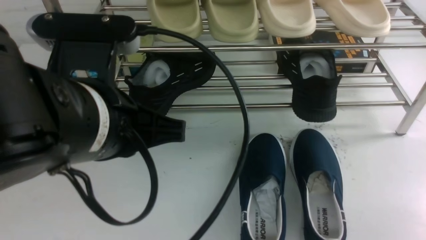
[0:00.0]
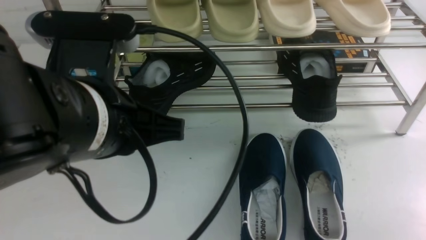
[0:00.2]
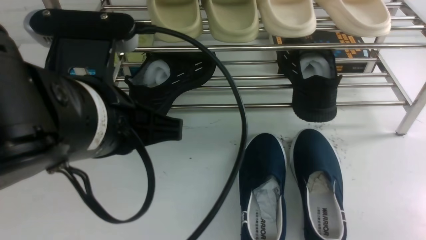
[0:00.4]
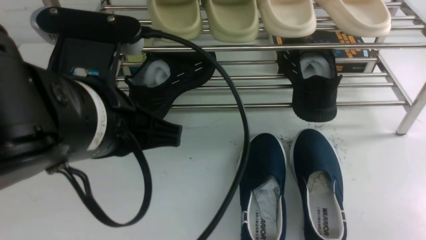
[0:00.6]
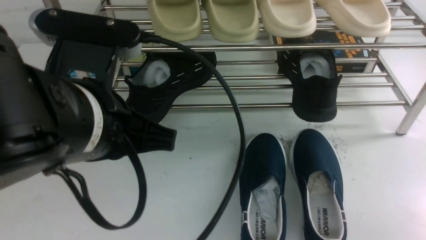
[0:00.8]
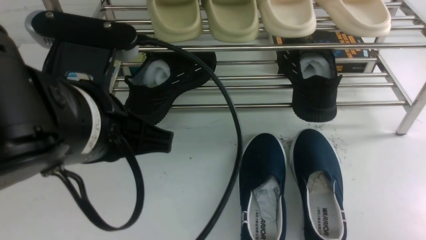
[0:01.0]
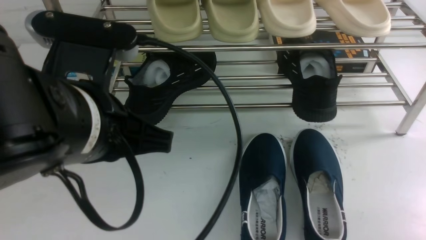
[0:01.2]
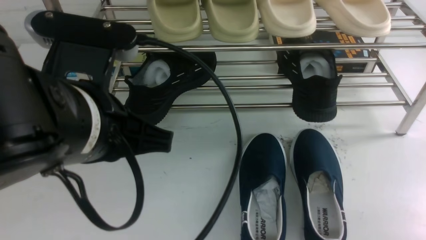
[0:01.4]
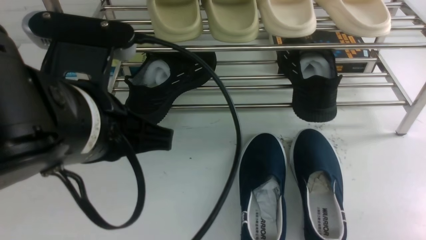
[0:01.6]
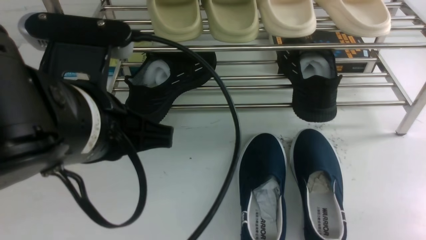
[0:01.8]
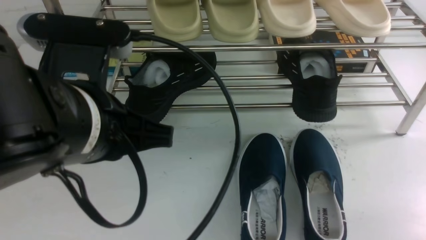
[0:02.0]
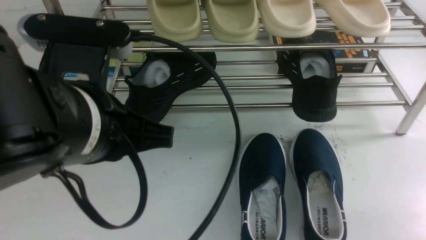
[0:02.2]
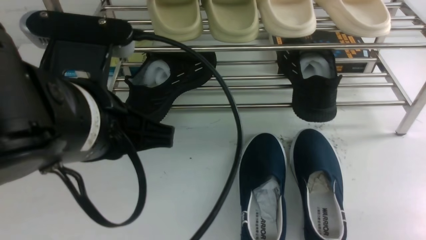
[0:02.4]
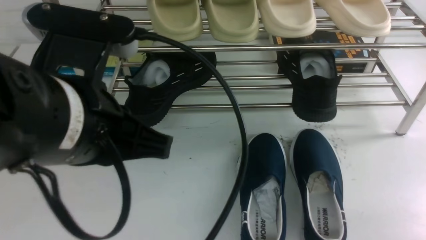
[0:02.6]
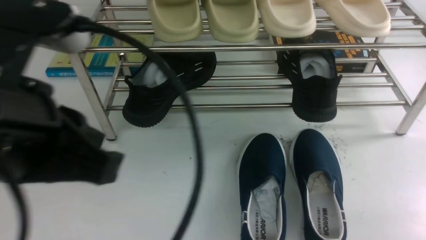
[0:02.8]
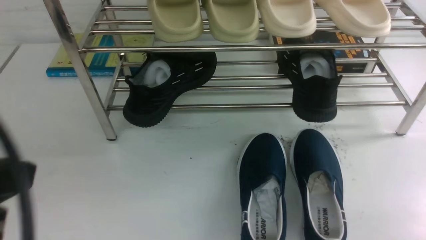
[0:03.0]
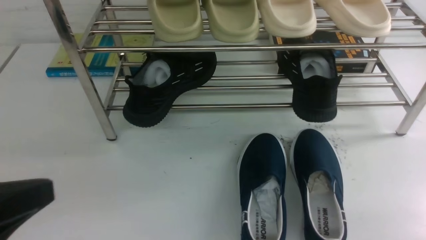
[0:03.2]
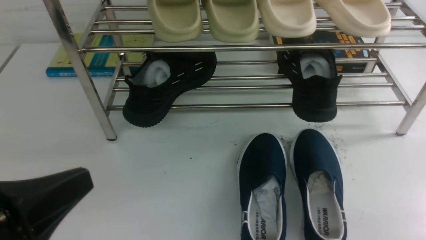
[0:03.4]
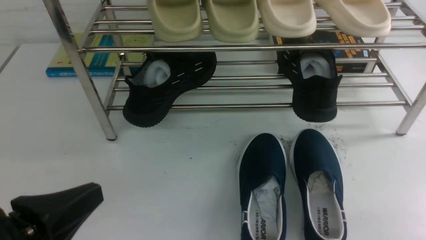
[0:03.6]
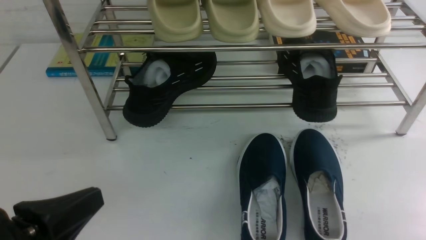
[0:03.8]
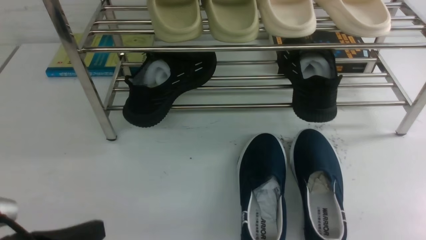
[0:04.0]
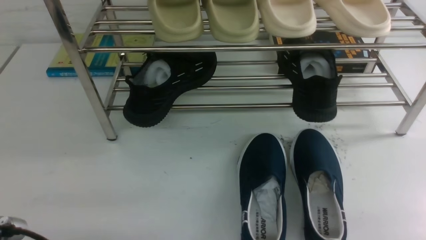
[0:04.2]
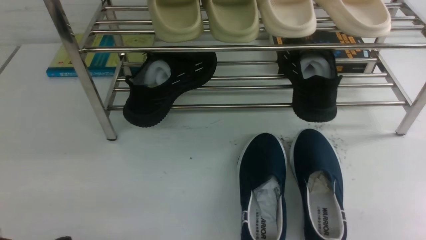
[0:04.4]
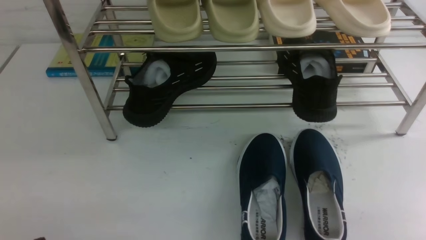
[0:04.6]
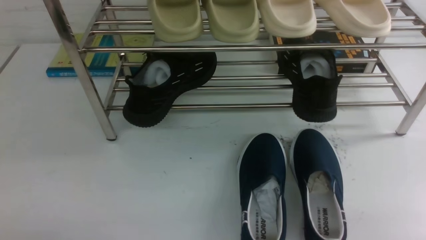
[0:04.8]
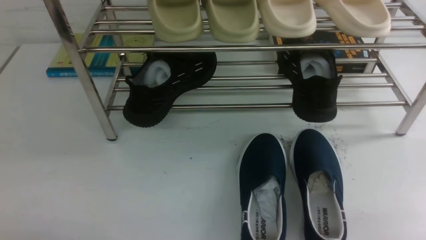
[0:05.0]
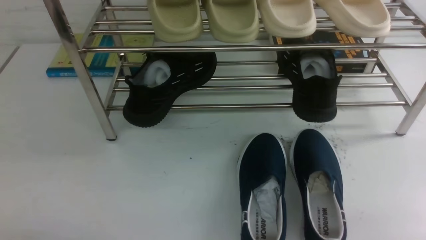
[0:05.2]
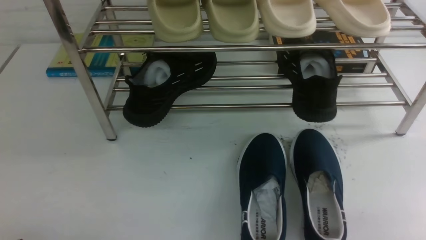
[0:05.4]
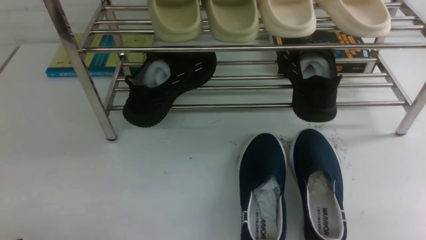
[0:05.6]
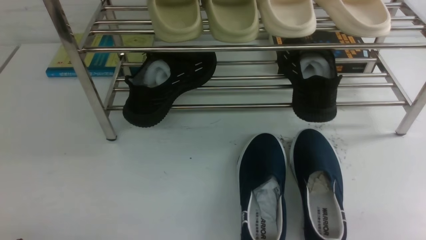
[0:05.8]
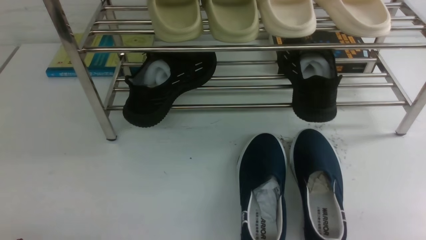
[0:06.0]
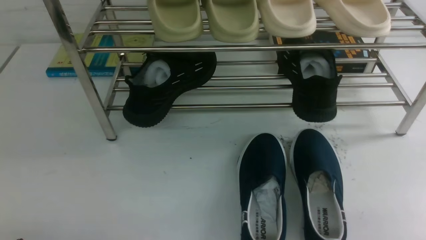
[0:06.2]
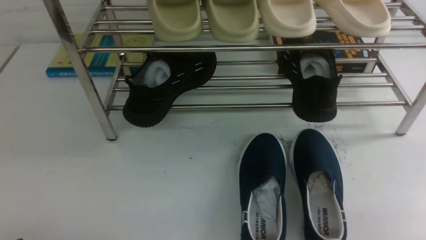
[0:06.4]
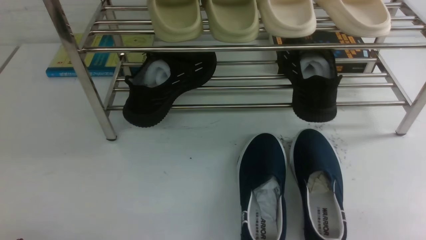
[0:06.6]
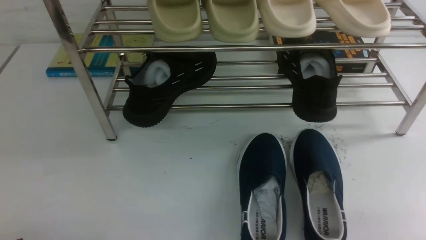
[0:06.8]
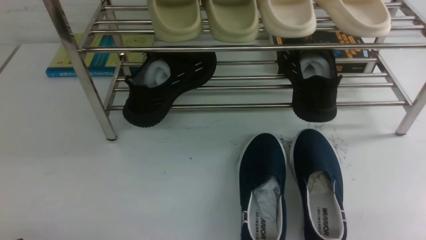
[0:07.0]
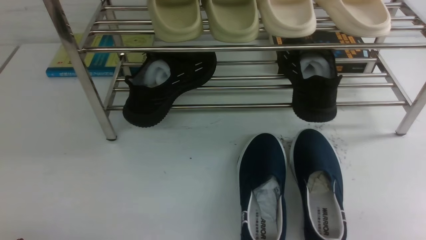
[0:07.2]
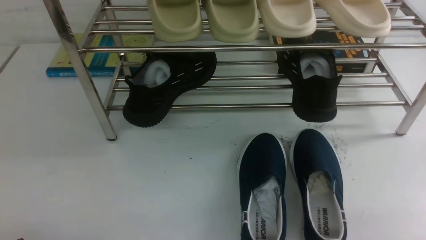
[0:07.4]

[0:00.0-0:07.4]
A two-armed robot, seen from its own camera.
0:01.4 to 0:03.0: The left gripper goes some 10 cm to the left and backward.
0:03.0 to 0:04.4: The left gripper travels downward by approximately 20 cm.
0:06.0 to 0:07.4: Both grippers stay about where they are.

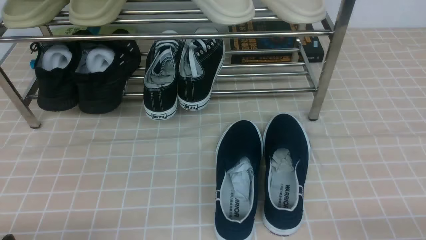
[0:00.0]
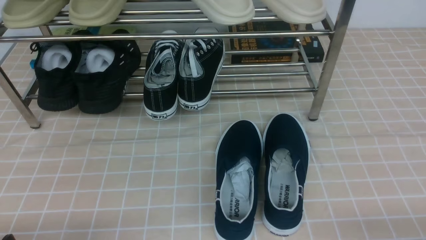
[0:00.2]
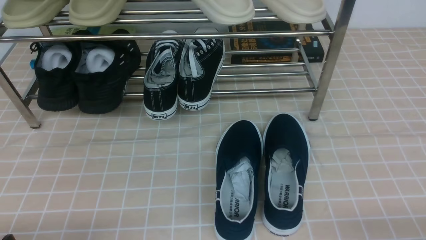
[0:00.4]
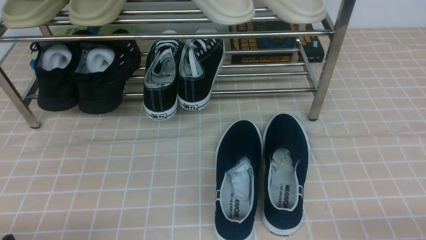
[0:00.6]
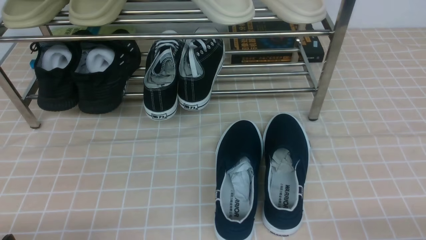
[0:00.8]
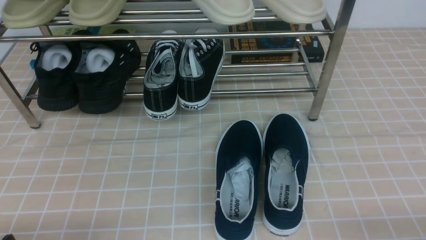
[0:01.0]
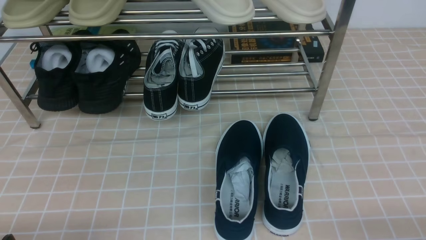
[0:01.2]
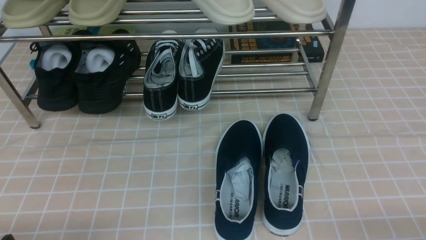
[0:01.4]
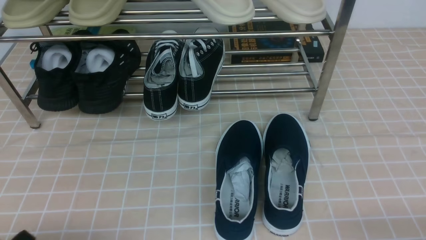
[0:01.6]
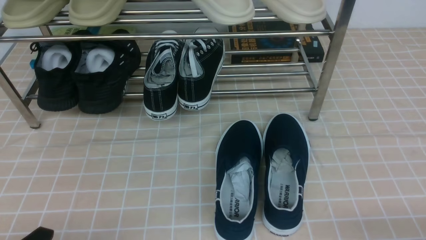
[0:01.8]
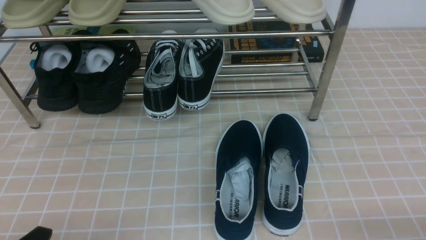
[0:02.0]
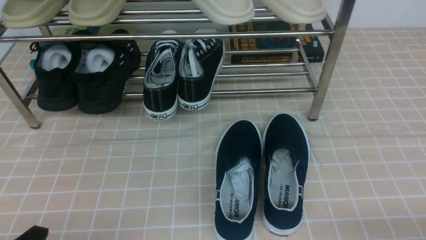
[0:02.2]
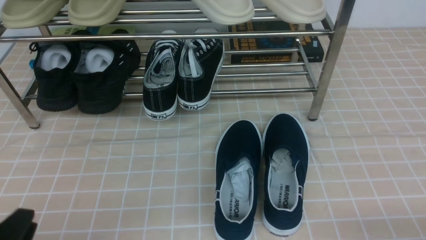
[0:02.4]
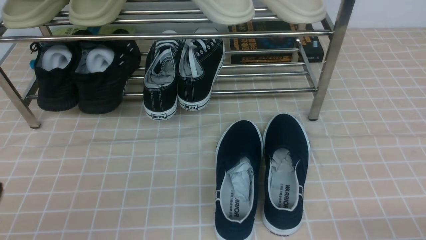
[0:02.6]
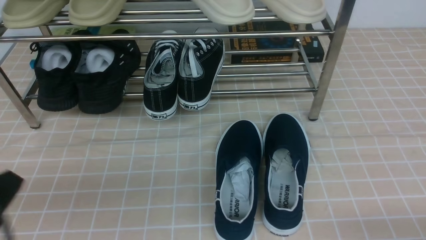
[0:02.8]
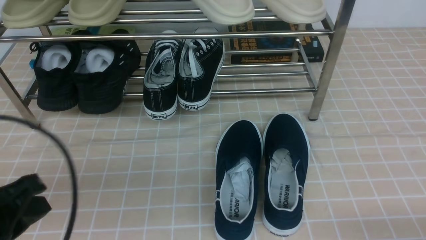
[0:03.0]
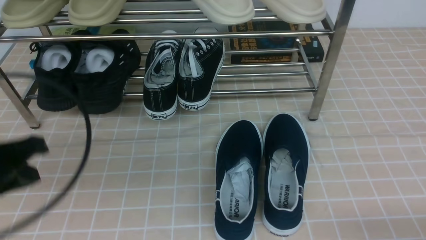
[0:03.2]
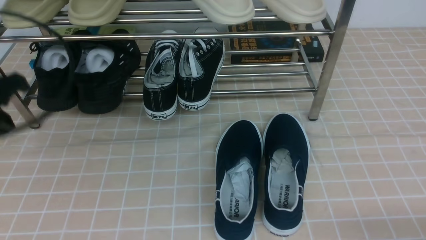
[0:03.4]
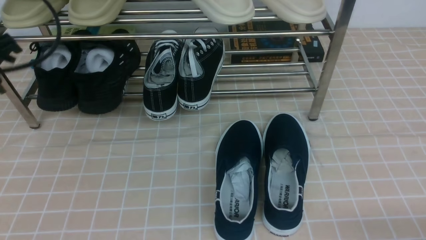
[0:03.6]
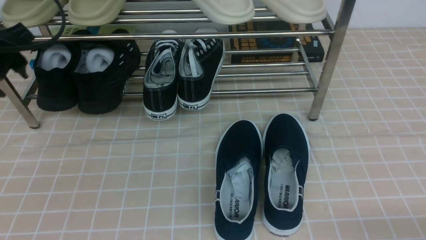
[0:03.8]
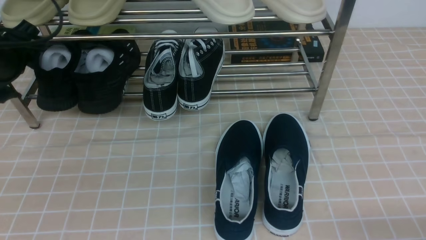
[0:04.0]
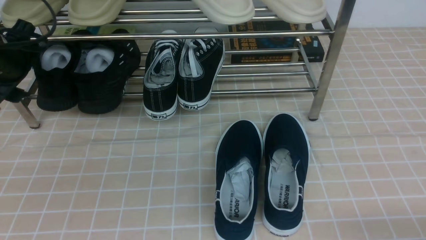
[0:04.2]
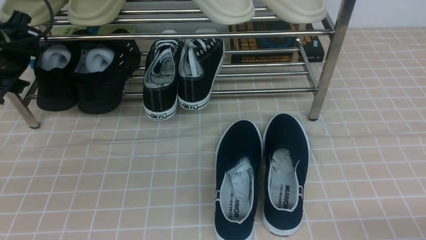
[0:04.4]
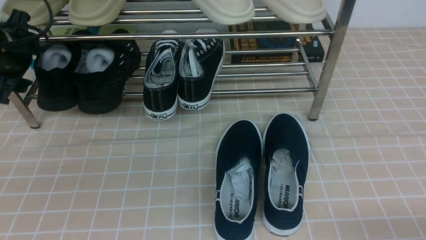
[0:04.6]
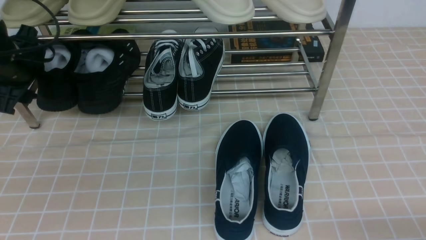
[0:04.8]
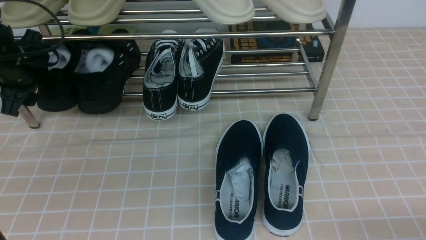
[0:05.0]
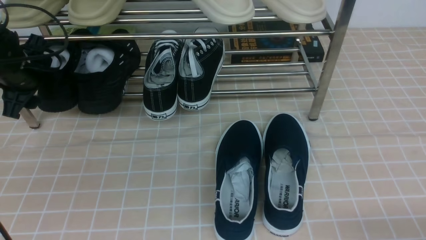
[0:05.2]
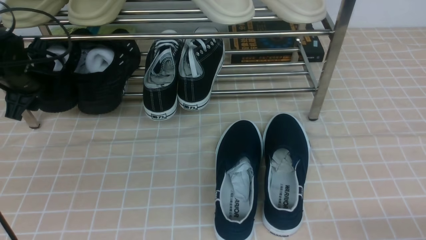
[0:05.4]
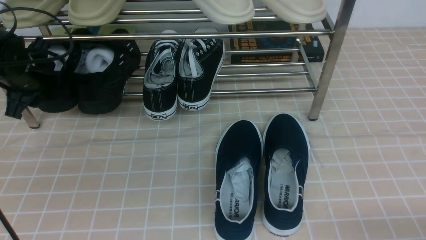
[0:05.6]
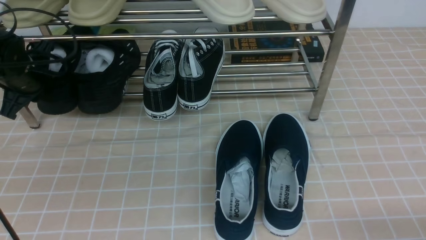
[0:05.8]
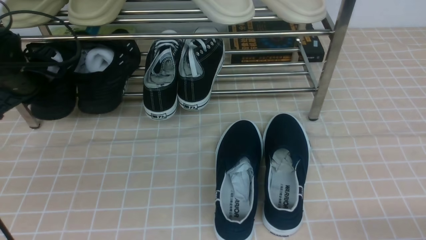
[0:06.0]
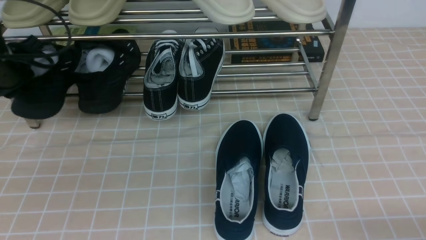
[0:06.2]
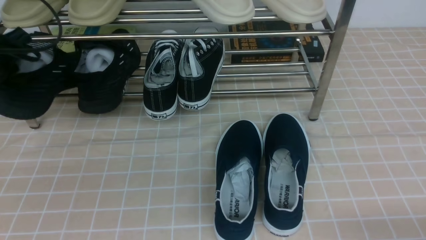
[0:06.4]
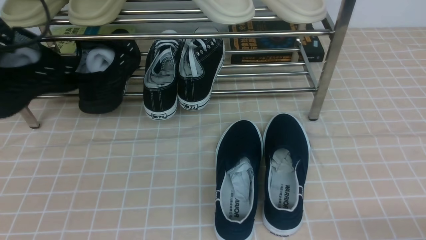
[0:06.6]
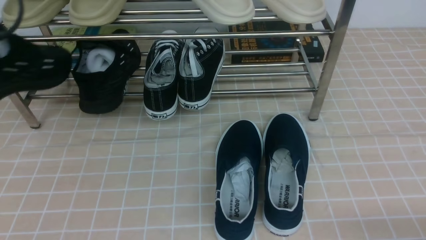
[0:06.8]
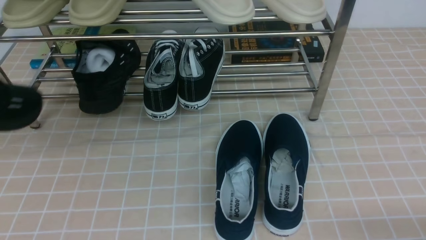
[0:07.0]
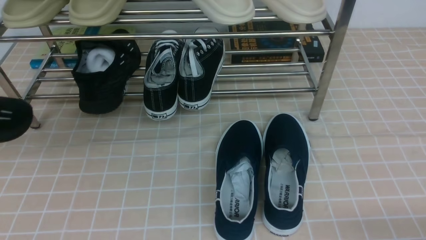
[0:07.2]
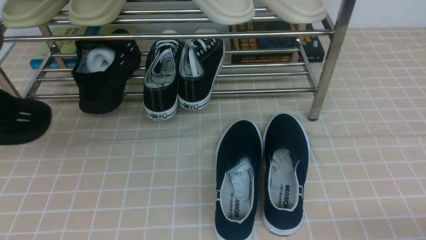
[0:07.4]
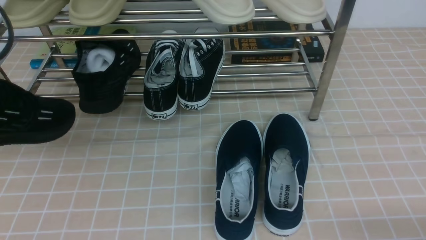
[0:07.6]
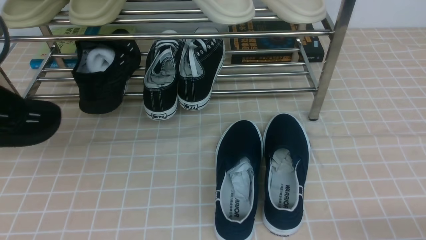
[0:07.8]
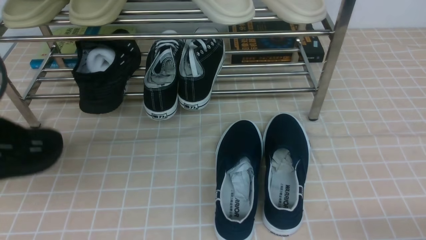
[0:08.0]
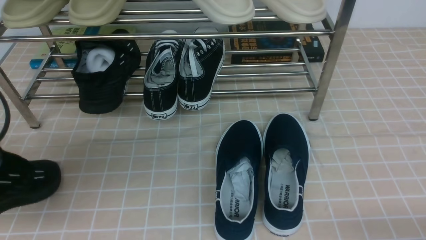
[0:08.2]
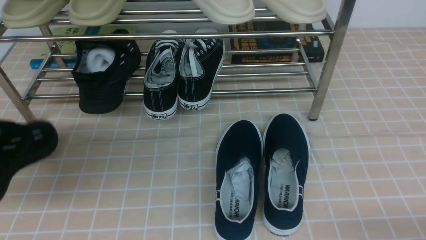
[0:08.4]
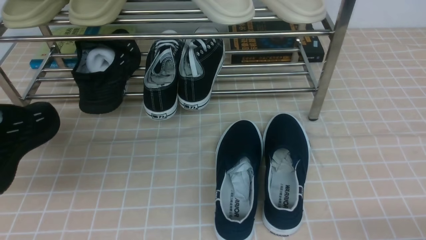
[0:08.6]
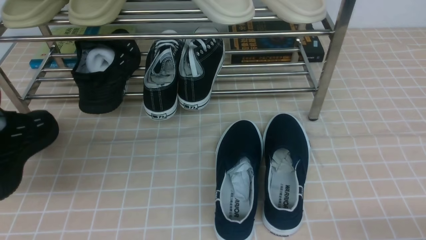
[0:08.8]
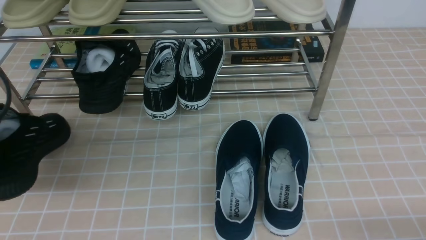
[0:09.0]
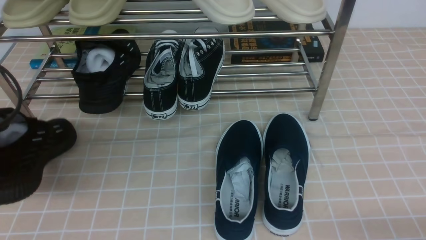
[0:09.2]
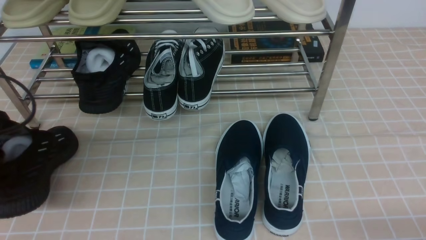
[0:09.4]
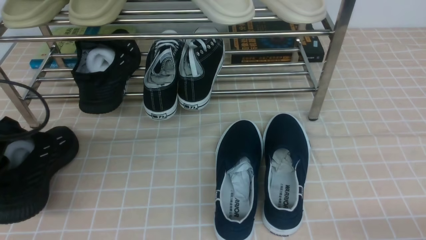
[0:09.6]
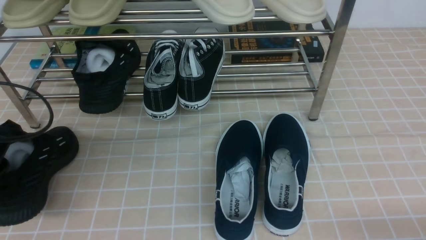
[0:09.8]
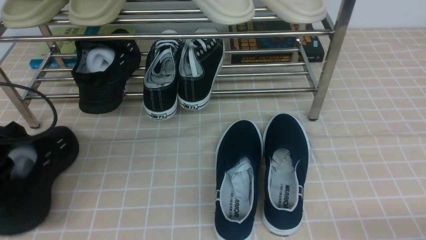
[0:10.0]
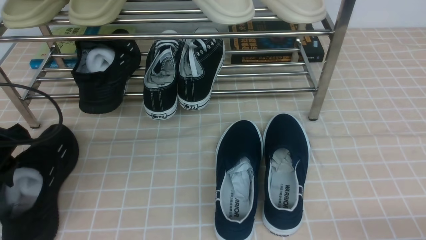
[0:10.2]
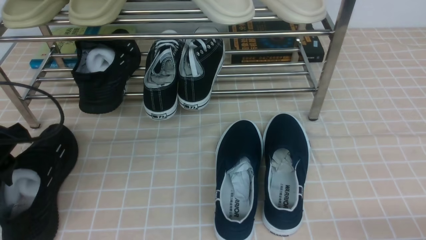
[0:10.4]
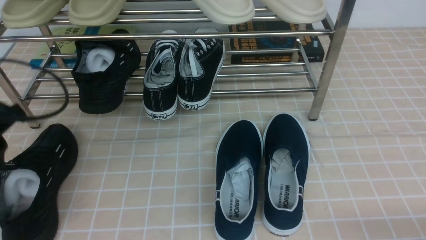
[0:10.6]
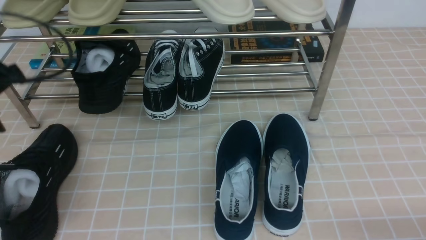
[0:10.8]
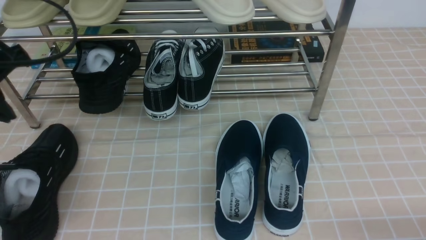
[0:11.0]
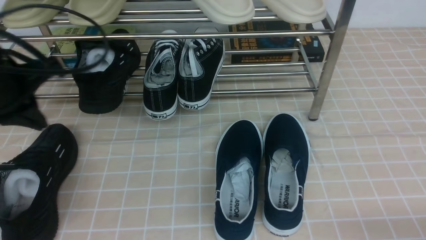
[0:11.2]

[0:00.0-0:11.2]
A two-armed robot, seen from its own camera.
Step, 0:00.0 to 0:05.6: use the left arm to clamp a shoe on the left side of the shoe rack.
Step, 0:06.0 to 0:10.0: Use your left arm to remove the clamped shoe from the shoe rack and put it down.
0:01.6 to 0:03.2: The left gripper moves upward and forward, roughly 20 cm, and closes up.
0:03.2 to 0:04.8: The left gripper heads forward, covering about 20 cm, and opens its fingers.
0:04.8 to 0:06.4: The left gripper ends up roughly 5 cm from where it was, and closes up.
0:06.4 to 0:08.0: The left gripper travels backward by approximately 15 cm.
0:08.0 to 0:09.6: The left gripper shifts some 10 cm downward and forward.
0:09.6 to 0:11.2: The left gripper goes roughly 5 cm upward, and opens, then closes again.
